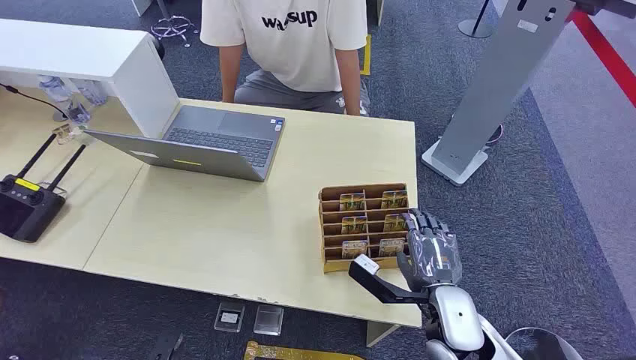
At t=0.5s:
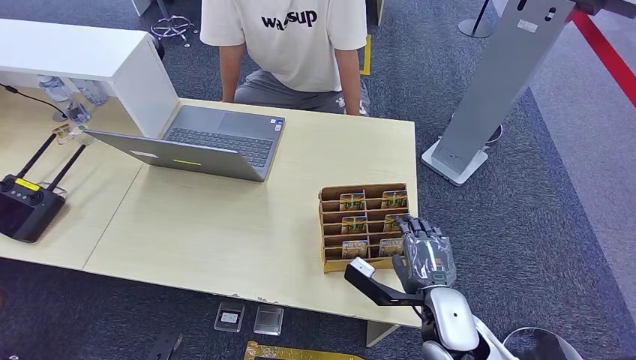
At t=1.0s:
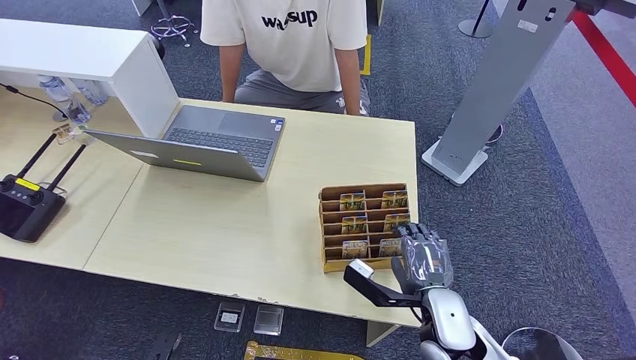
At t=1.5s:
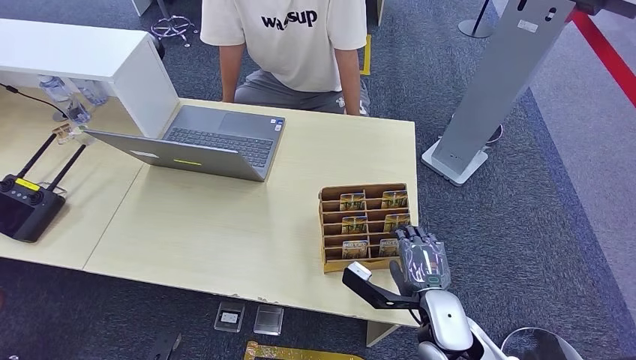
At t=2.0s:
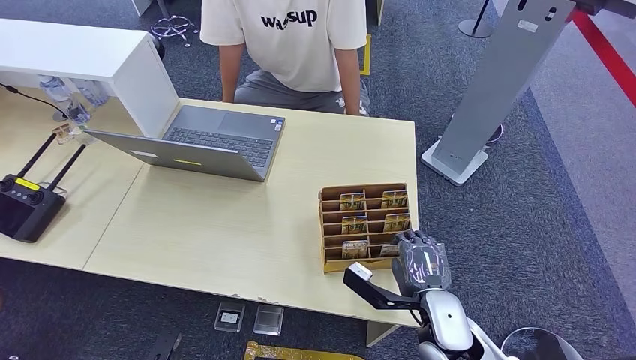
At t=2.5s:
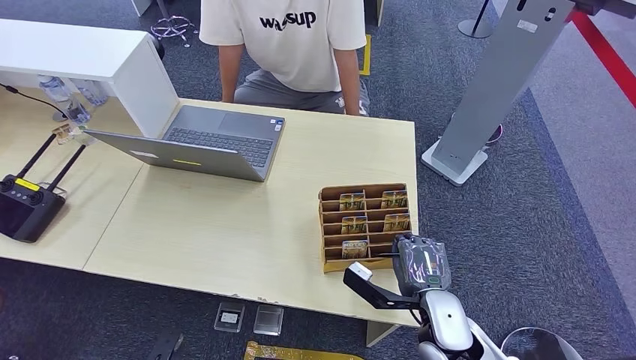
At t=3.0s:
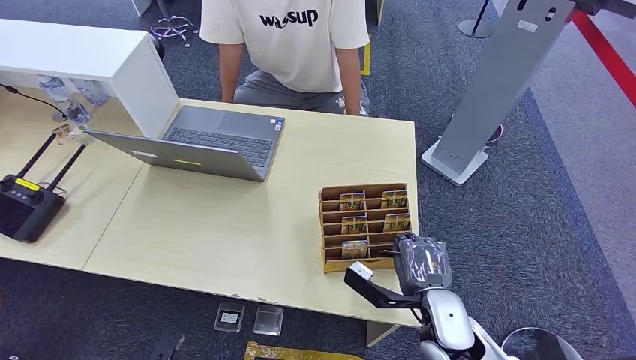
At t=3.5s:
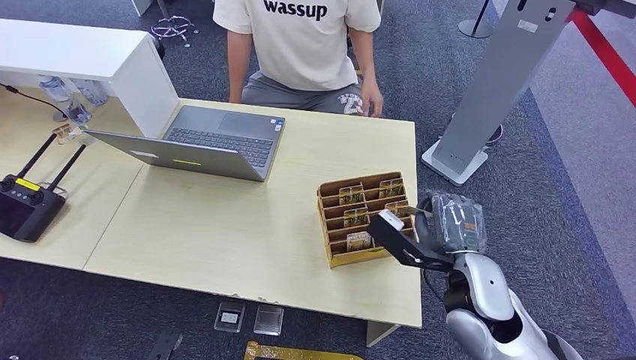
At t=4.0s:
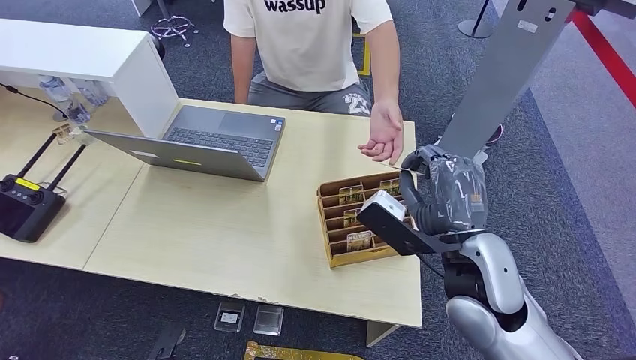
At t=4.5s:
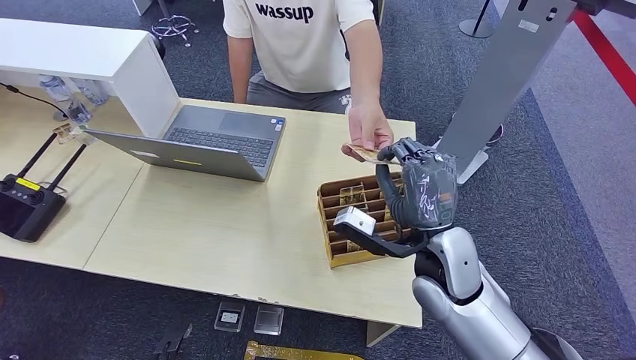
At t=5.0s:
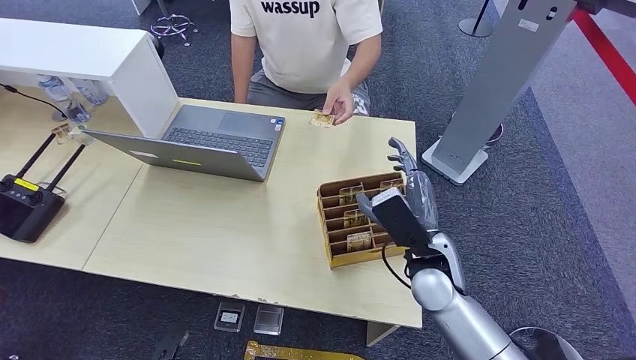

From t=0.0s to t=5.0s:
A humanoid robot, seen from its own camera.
Step, from t=0.0s to t=3.5s: Pick up the key card from the card box.
Step, from t=4.0s to t=5.0s: Hand the key card to the target.
From t=2.5s to t=5.0s: The right hand travels forward and upward by some 10 cm.
